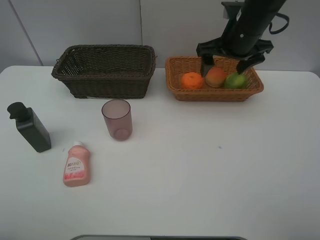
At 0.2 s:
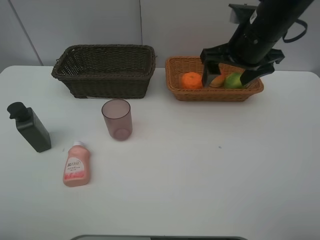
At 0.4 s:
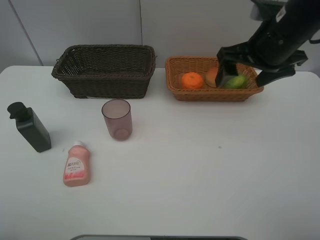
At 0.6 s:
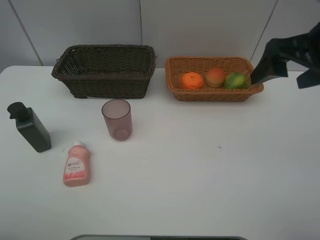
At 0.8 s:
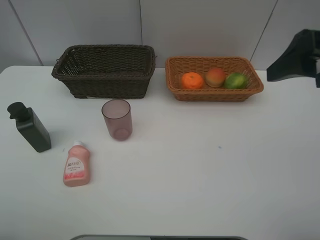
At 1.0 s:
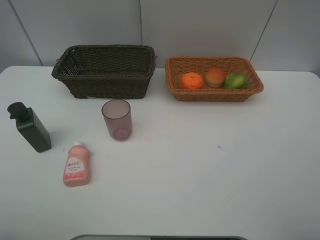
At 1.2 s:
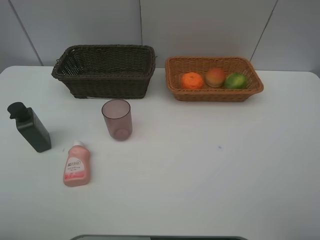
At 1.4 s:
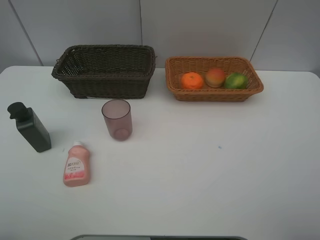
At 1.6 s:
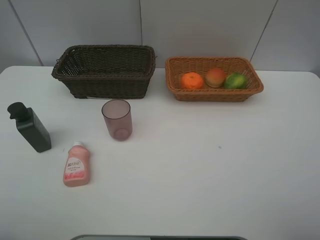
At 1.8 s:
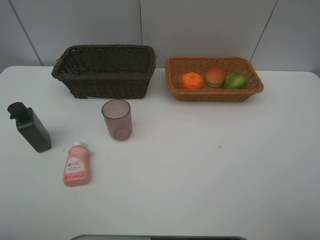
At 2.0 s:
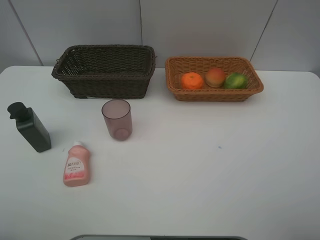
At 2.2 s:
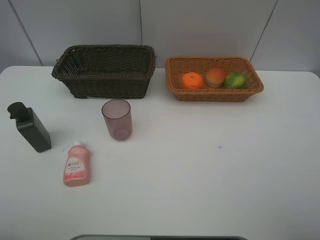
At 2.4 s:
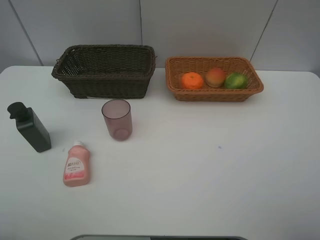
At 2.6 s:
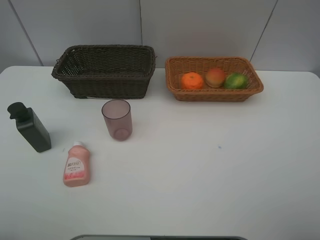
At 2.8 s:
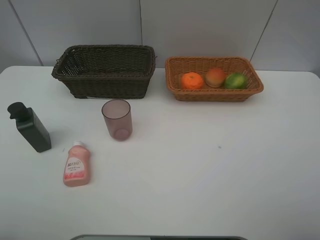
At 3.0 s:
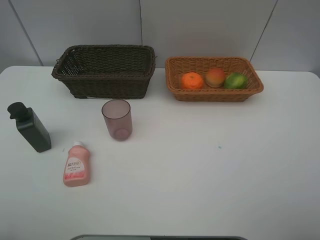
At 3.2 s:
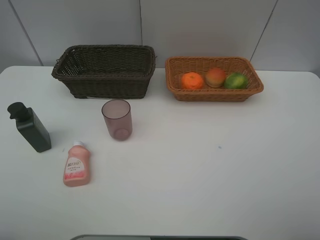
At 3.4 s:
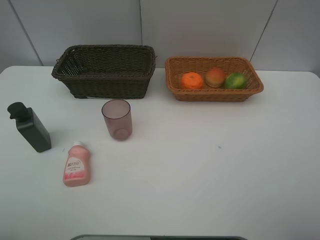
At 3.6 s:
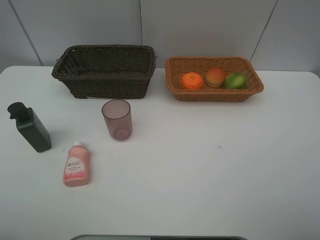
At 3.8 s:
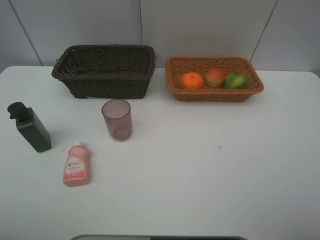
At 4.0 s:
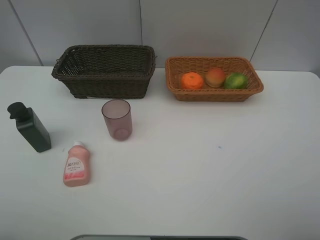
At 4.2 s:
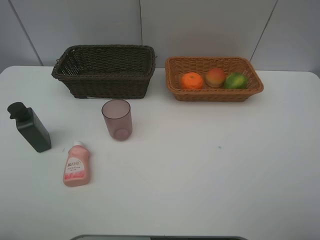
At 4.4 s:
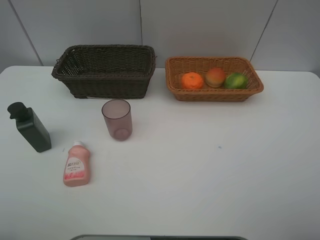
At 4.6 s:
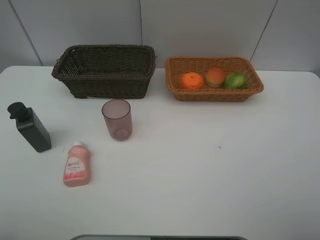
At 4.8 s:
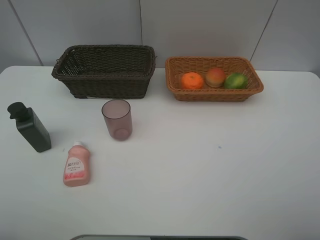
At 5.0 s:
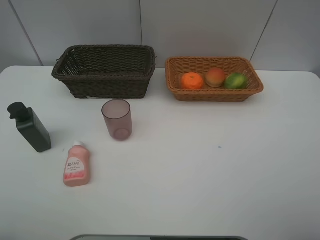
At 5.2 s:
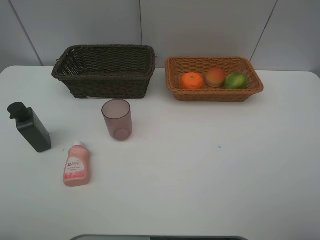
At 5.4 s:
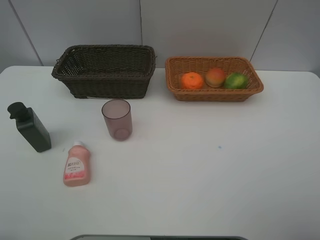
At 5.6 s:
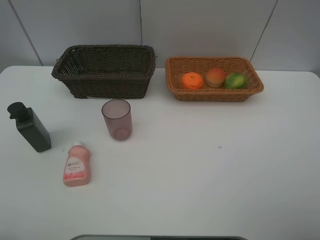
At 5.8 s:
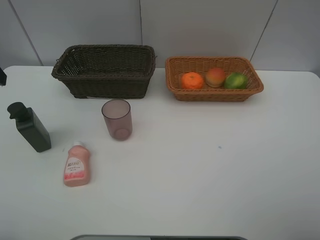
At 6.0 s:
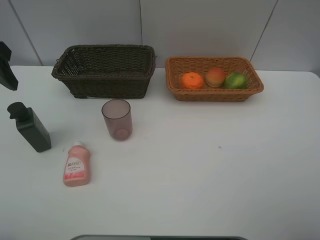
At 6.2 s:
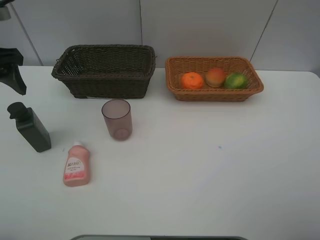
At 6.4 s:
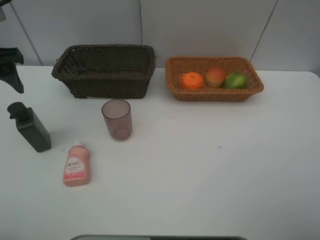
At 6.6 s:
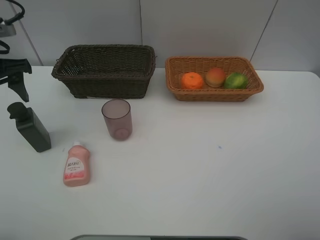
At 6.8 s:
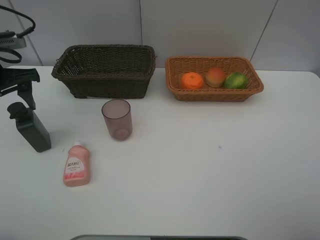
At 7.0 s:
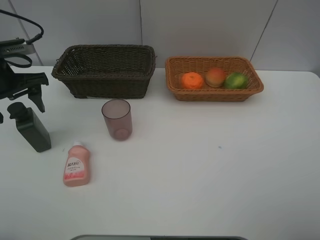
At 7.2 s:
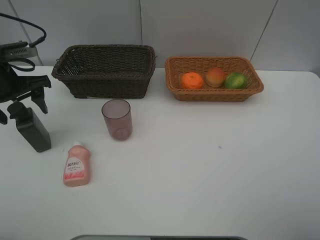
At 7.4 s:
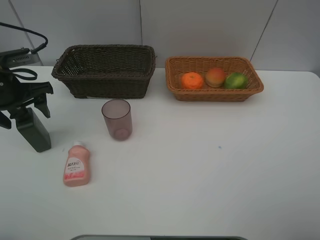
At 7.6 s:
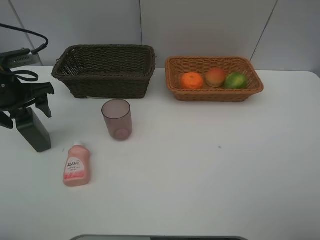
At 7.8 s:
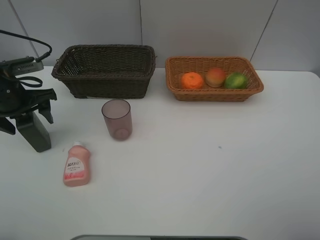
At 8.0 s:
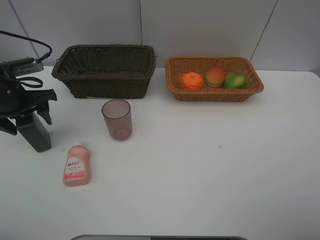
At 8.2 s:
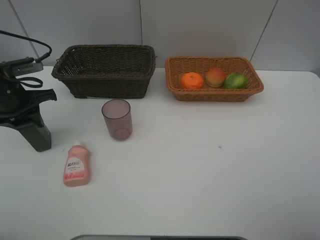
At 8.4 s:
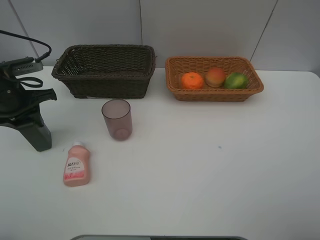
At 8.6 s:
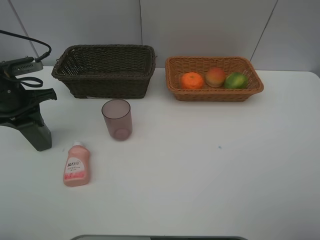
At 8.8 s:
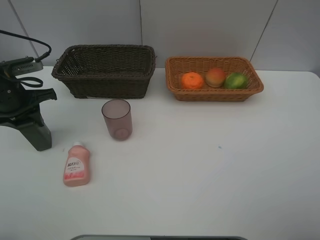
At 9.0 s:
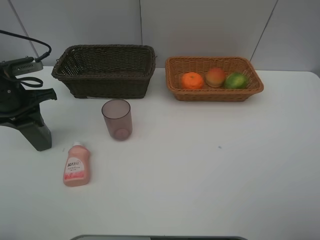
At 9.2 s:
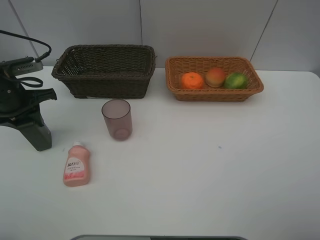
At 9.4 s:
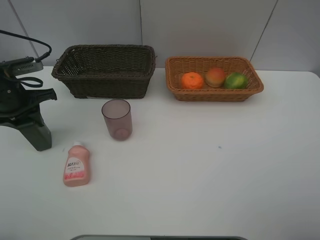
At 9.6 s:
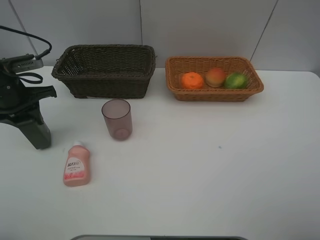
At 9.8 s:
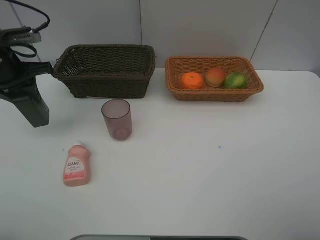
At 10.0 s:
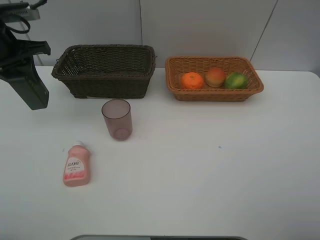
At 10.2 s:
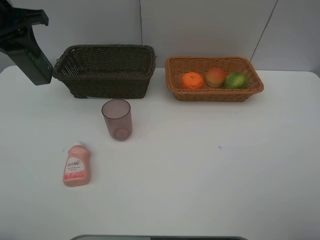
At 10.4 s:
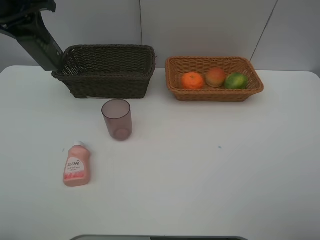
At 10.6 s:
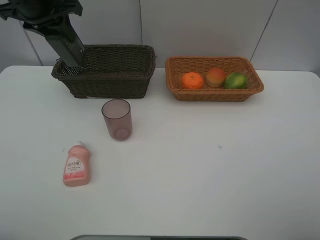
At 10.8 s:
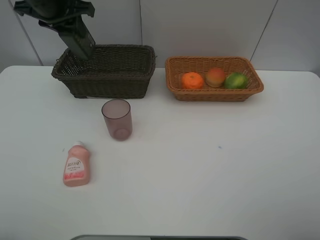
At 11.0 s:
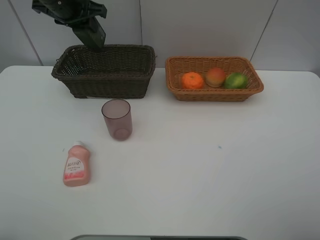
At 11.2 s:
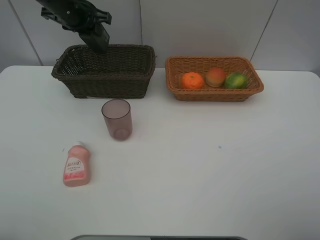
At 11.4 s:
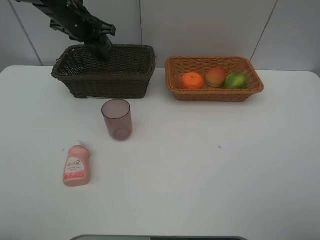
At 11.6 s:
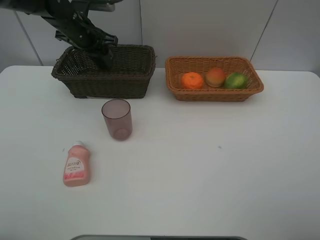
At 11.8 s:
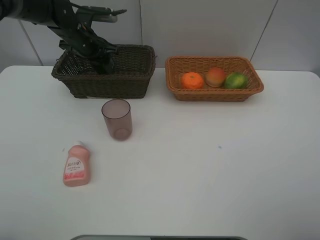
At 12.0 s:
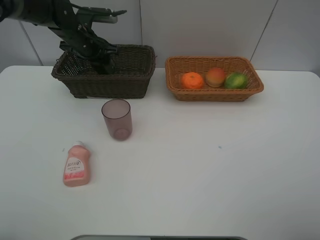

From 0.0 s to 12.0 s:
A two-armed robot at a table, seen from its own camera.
Task of the whole recording: place multiple objects separately in different baskets.
From 0.0 s to 1.6 s: The right gripper is displaced backward by about 35 cm.
From 3.0 s to 4.4 s: Neither gripper changes place.
From 4.4 s to 6.0 s: The left gripper heads forward, covering some 25 cm.
From 6.0 s to 7.6 s: The left gripper shifts approximately 10 cm downward.
From 7.6 s to 9.0 s: The left gripper closes up.
From 9.0 s to 10.4 s: The left gripper travels upward and forward by approximately 15 cm.
From 10.4 s to 12.0 s: The left gripper heads downward, forward and to the right, covering approximately 20 cm.

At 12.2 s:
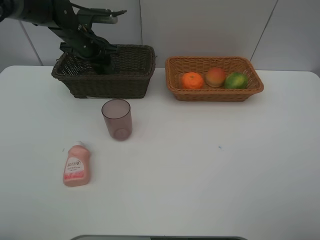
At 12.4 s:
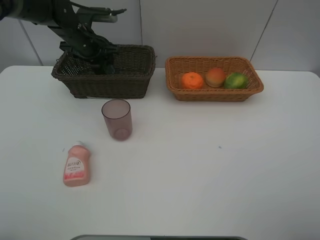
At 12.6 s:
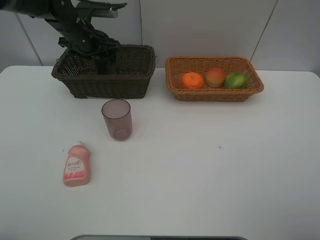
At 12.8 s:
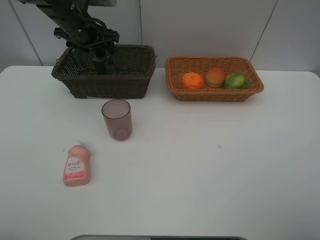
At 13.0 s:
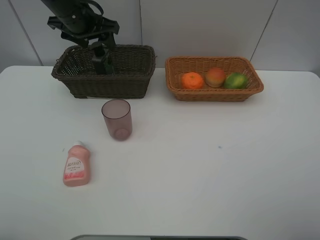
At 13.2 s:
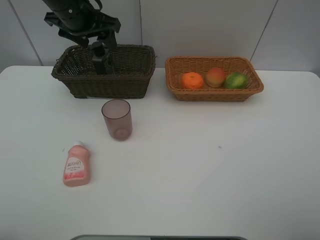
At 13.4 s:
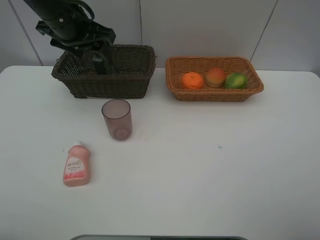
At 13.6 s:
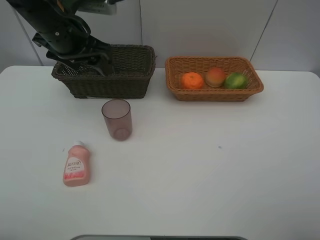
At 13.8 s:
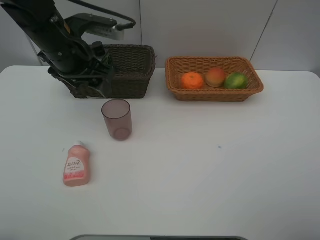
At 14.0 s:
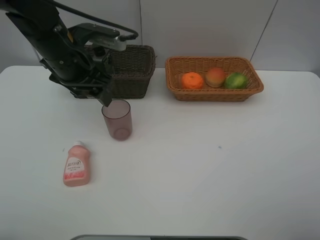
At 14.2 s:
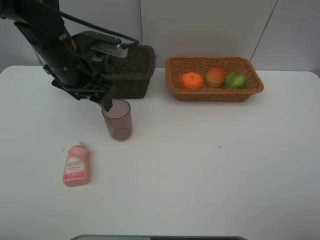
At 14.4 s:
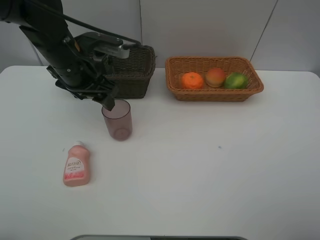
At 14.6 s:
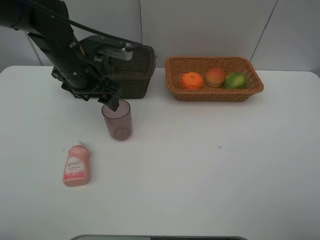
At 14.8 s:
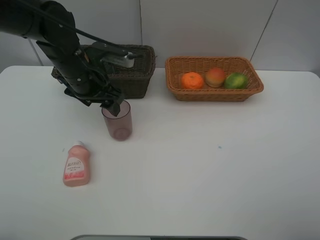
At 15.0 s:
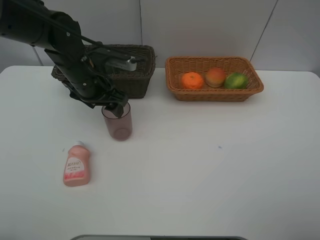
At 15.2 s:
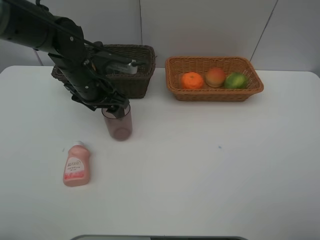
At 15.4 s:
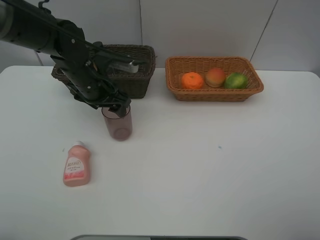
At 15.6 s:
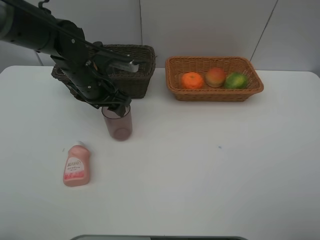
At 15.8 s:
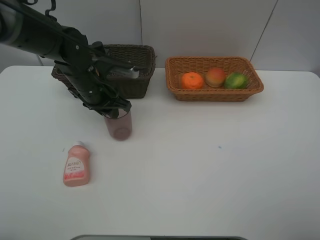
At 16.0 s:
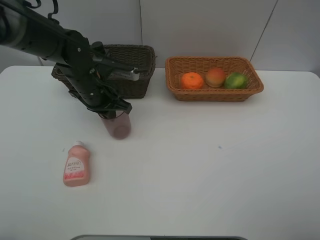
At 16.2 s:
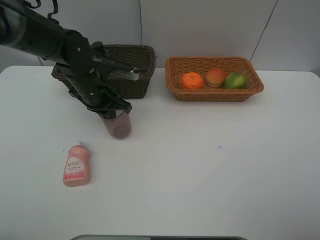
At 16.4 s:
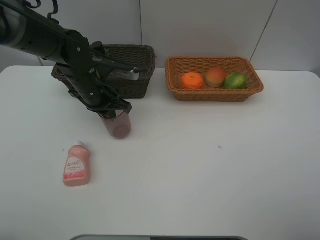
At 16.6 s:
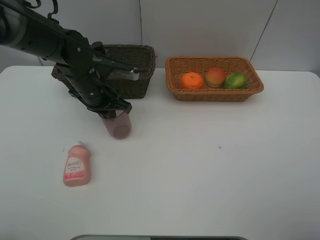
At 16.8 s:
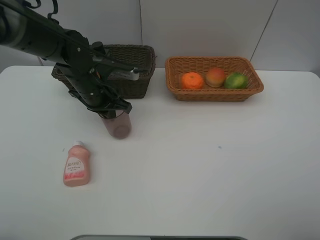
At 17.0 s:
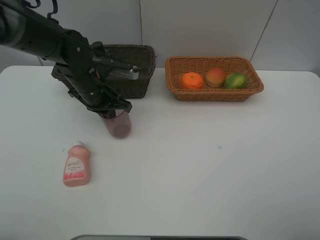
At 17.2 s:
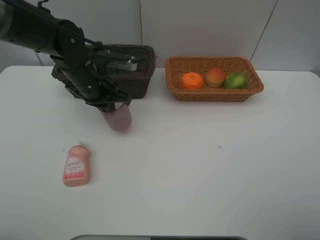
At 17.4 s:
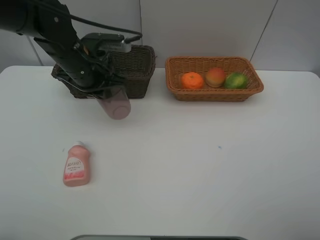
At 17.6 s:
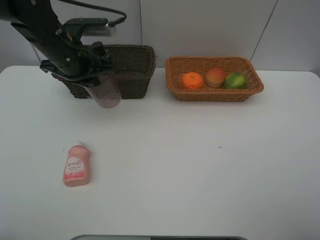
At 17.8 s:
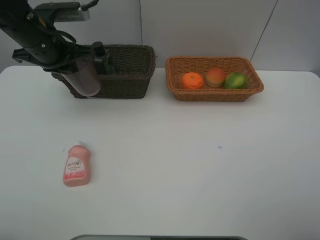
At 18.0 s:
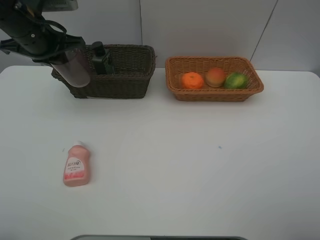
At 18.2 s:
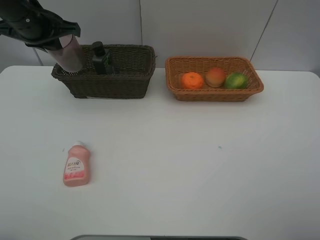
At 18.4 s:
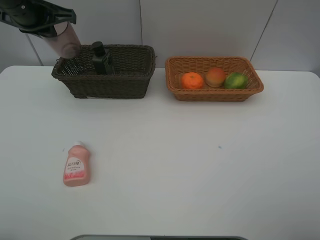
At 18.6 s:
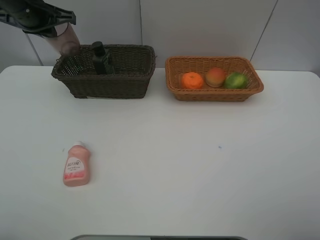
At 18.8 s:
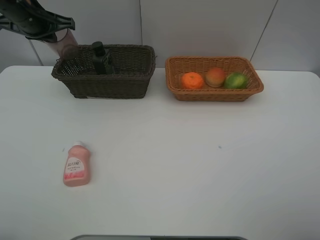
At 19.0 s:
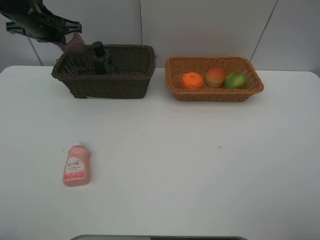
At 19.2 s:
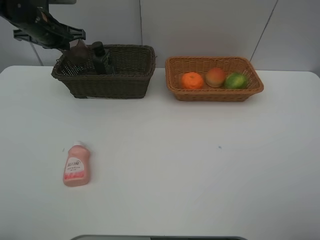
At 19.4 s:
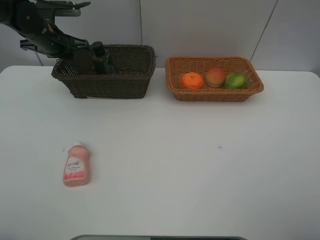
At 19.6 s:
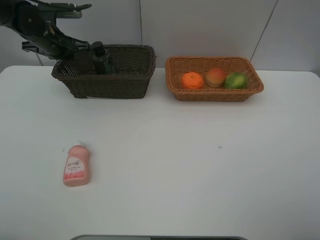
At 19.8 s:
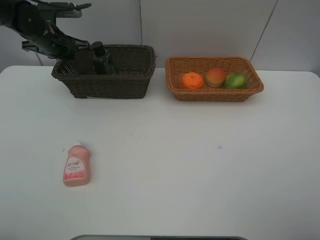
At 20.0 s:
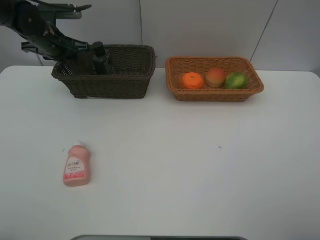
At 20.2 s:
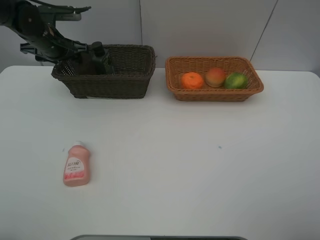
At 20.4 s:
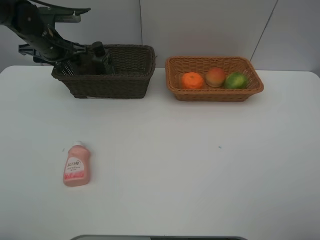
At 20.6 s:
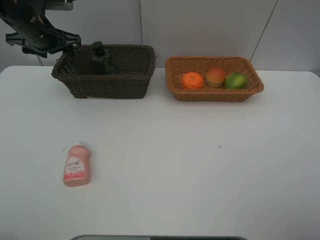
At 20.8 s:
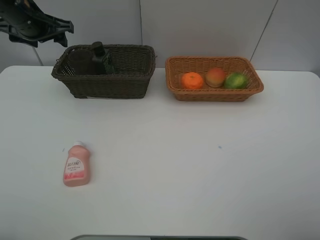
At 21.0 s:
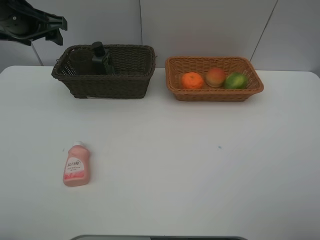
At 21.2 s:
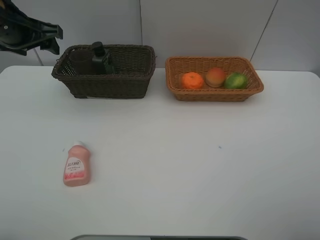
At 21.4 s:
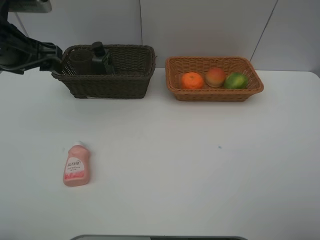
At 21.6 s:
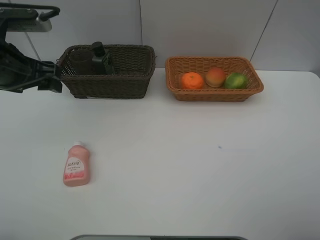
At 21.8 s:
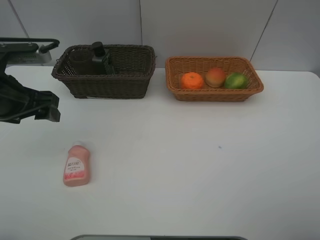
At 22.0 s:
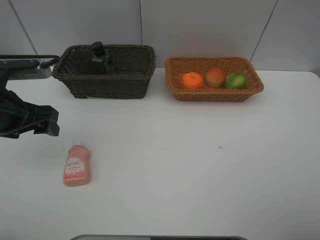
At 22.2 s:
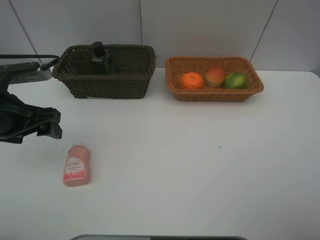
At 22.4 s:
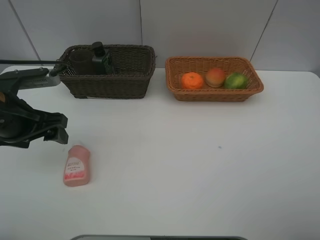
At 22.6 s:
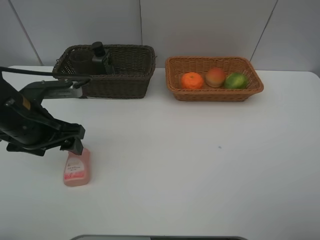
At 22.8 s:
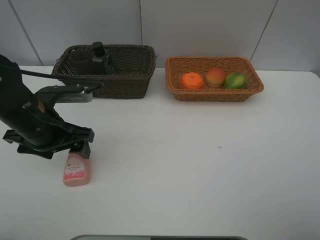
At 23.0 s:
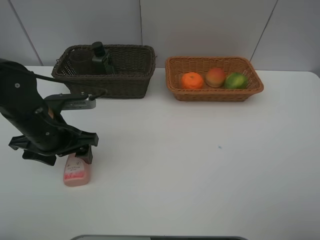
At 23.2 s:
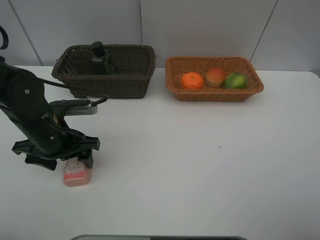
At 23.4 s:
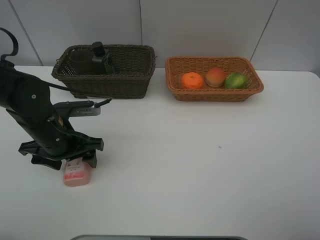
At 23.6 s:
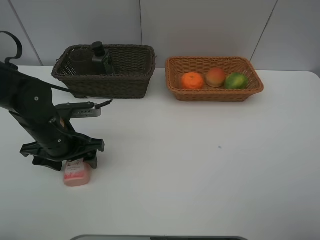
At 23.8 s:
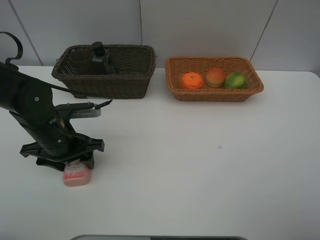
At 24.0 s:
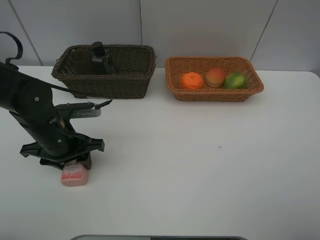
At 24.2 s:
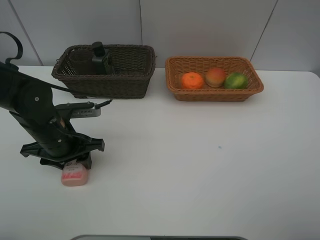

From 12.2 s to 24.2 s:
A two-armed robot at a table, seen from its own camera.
Task of the whole recording: place multiple objects separately in different baskets.
From 12.2 s to 13.8 s: The left gripper heads backward, covering some 15 cm, and opens up.
From 13.8 s to 15.2 s: The left gripper is displaced downward by some 10 cm.
From 15.2 s to 16.6 s: The left gripper closes.
From 16.6 s to 18.2 s: The left gripper goes some 15 cm upward and to the left.
From 18.2 s to 19.8 s: The left gripper goes about 10 cm downward and forward.
From 19.8 s to 21.2 s: The left gripper travels backward and upward by some 15 cm, and opens its fingers.
From 21.2 s to 22.6 s: The left gripper is displaced backward, downward and to the right by about 15 cm.
From 22.6 s to 24.2 s: The left gripper shifts about 5 cm downward, and closes its fingers.
